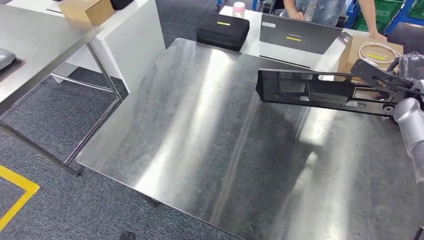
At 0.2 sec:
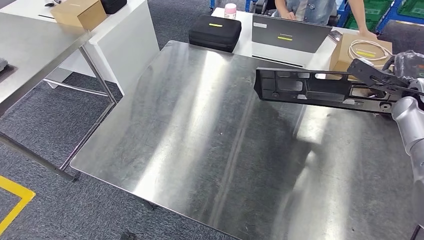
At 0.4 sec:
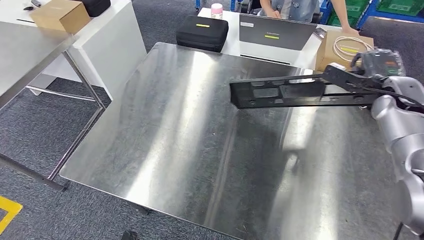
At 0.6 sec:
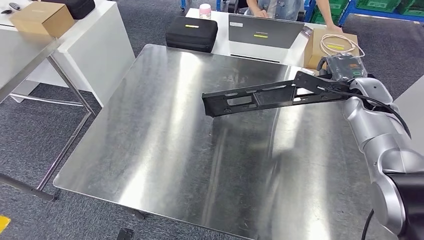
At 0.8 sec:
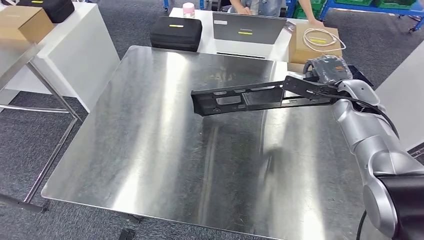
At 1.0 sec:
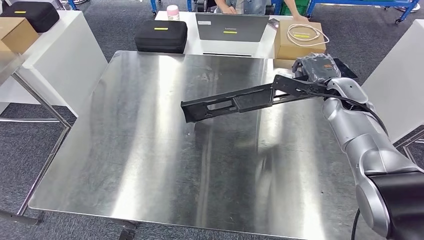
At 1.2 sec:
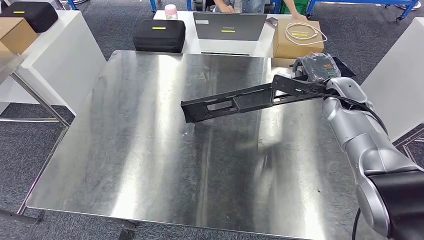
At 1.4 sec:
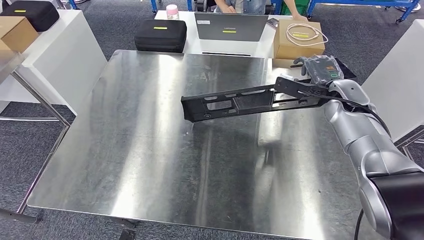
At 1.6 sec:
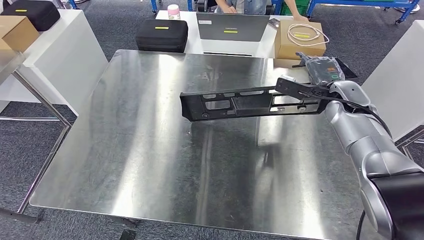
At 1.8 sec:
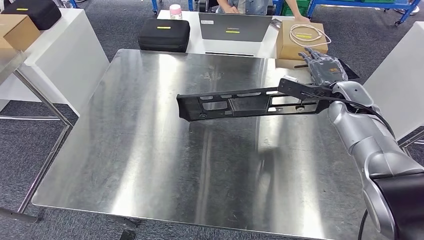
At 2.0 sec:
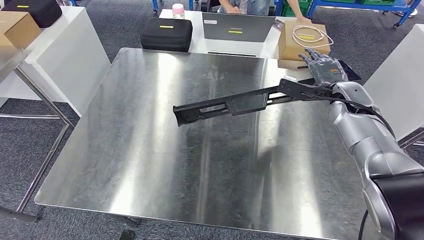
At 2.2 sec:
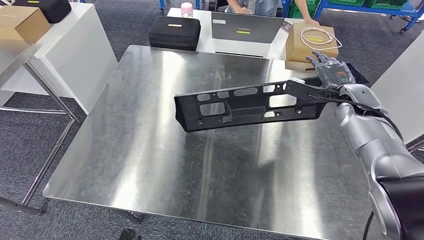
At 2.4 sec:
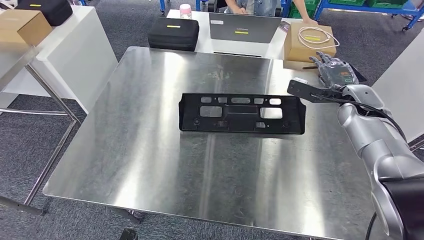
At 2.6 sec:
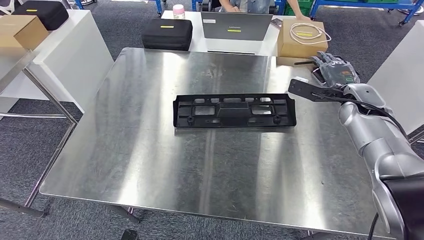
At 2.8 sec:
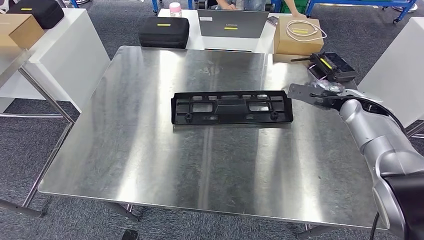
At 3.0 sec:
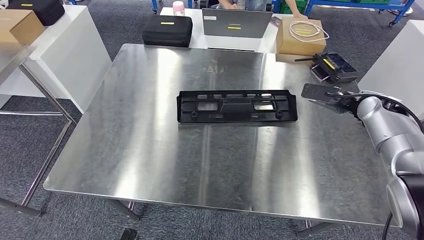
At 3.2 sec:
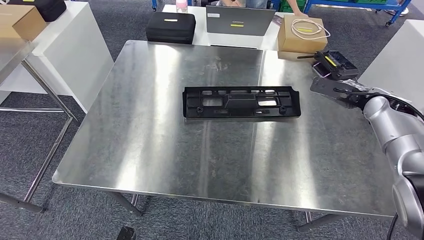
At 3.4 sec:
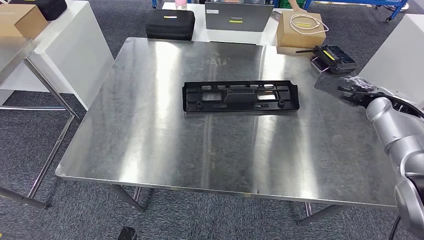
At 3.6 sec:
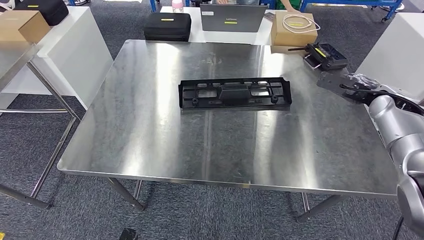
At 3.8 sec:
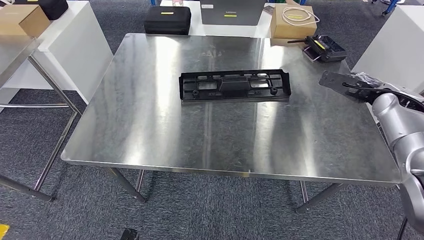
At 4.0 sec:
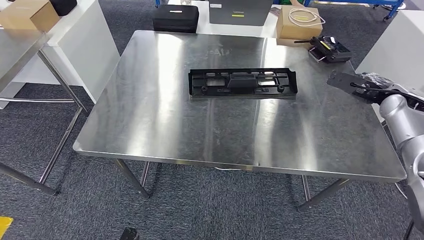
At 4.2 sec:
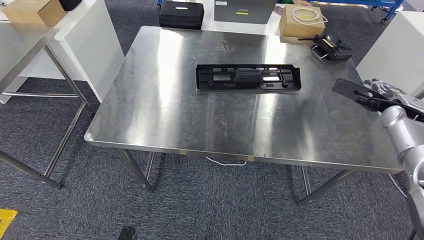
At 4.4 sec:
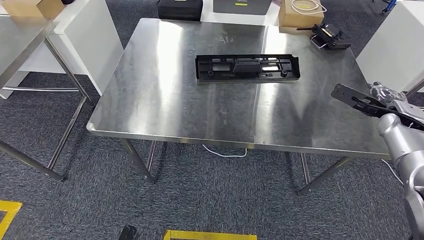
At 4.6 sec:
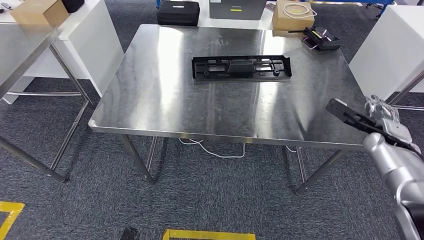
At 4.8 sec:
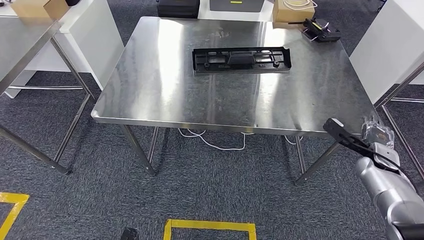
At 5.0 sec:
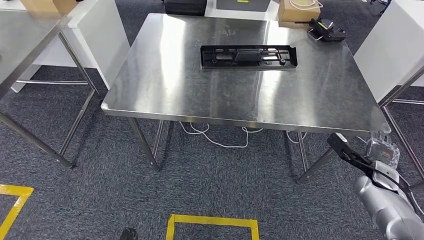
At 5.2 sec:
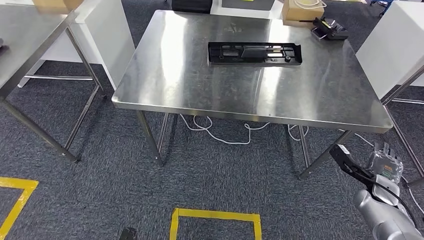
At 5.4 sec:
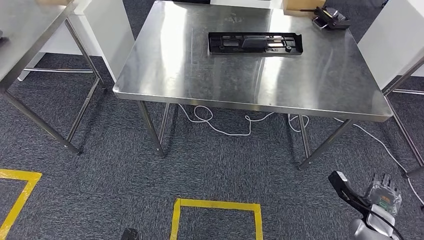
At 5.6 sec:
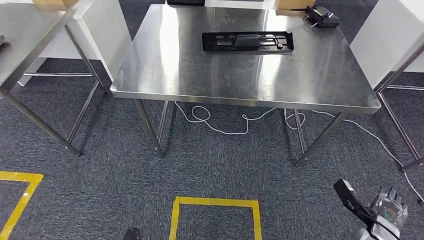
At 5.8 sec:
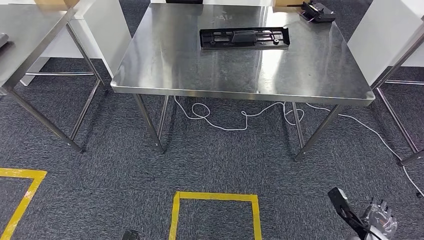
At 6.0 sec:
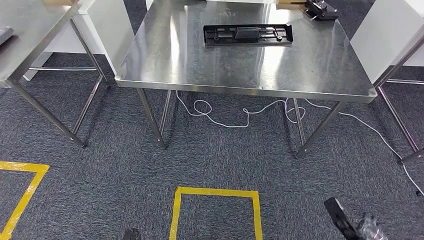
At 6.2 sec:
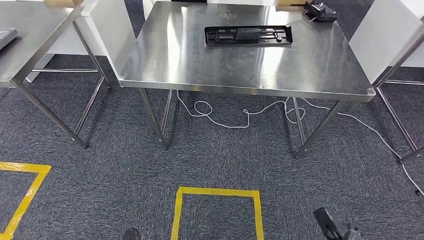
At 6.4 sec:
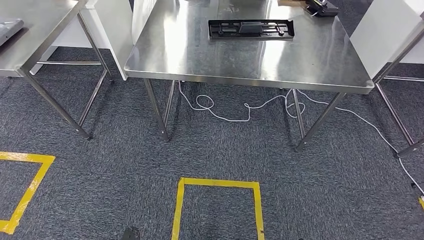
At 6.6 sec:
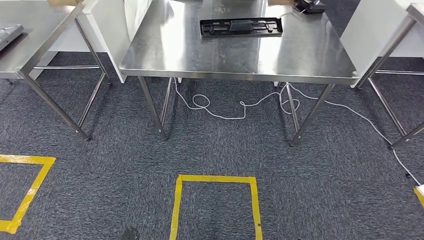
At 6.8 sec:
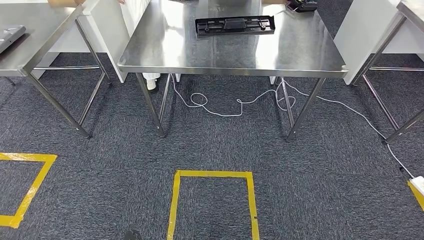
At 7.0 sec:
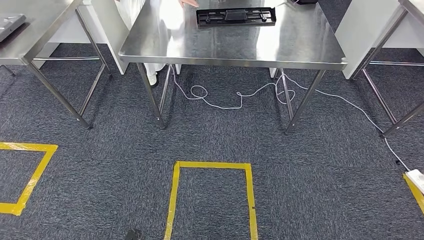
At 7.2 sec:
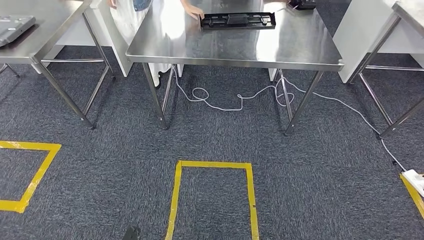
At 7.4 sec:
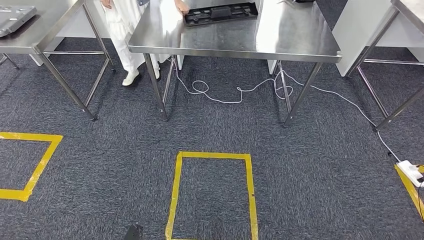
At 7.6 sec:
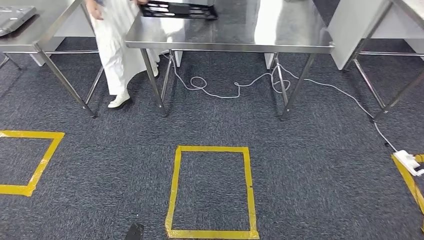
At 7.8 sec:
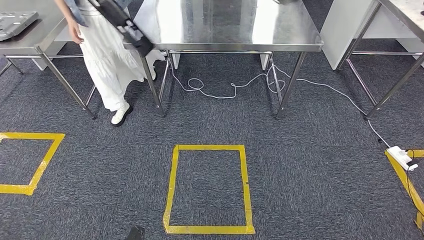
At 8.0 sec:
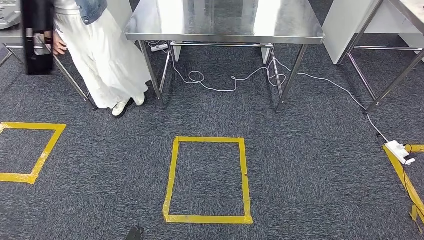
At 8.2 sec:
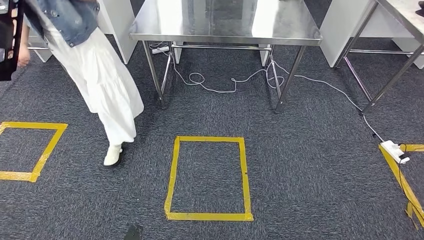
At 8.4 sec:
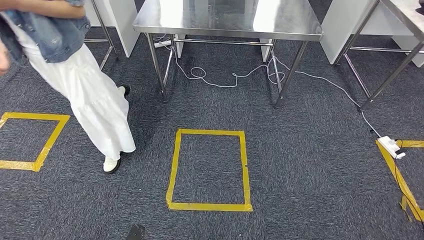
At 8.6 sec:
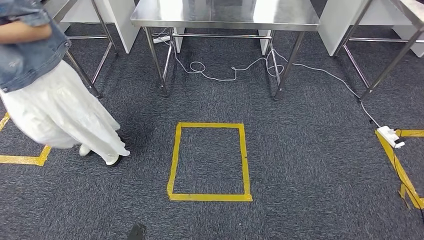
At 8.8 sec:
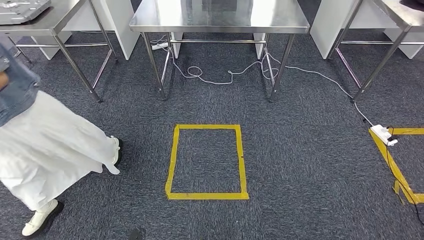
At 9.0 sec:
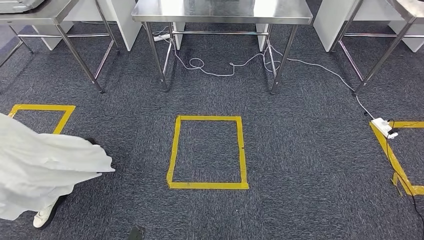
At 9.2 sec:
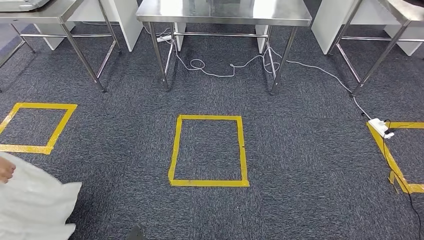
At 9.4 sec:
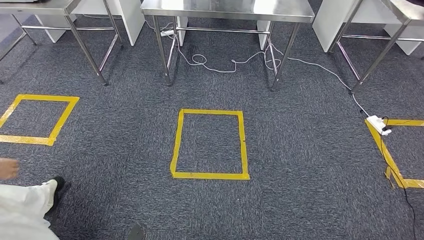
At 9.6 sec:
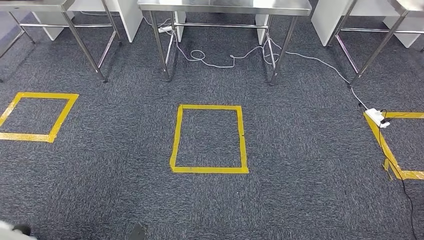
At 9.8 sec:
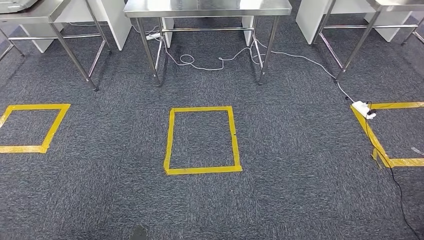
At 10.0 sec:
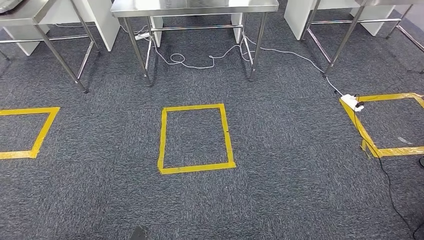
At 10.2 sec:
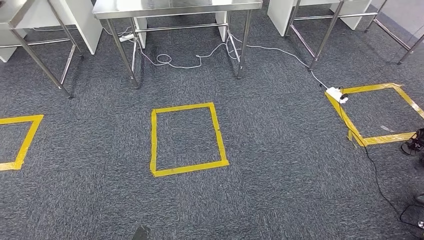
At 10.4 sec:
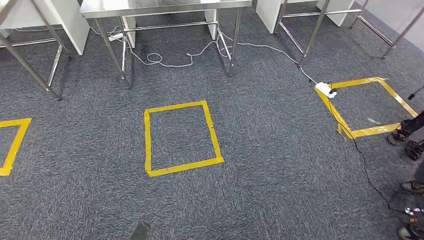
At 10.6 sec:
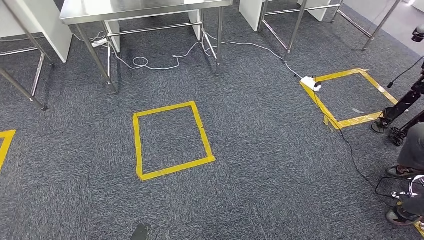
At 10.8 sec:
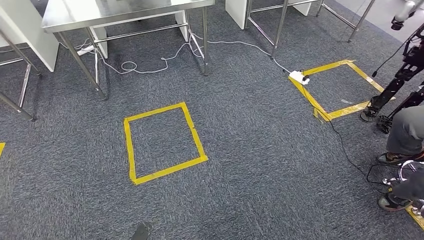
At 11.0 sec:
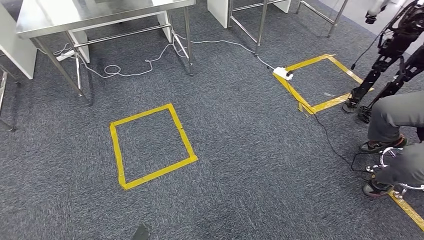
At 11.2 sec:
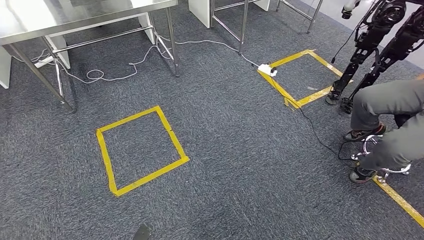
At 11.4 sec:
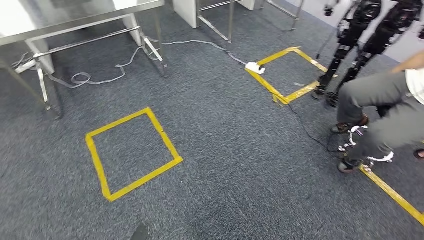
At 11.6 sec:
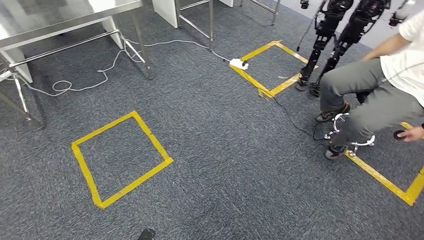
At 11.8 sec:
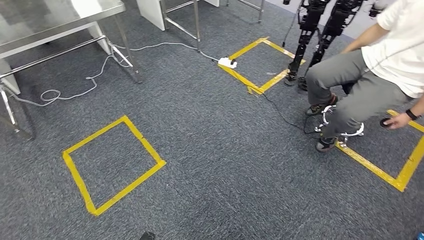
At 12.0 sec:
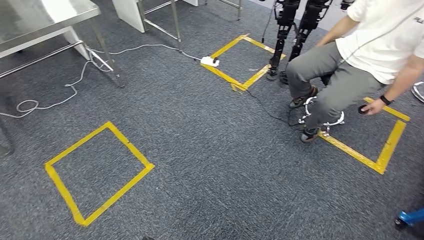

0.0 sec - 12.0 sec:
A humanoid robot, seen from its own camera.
Step, 0.0 sec - 3.2 sec: Insert the large material into the corresponding slot on the workbench.

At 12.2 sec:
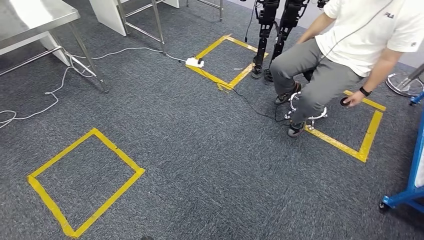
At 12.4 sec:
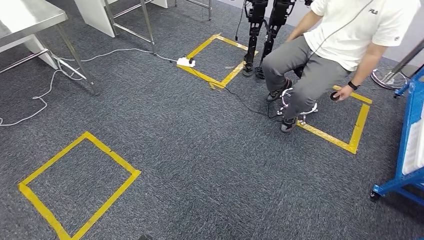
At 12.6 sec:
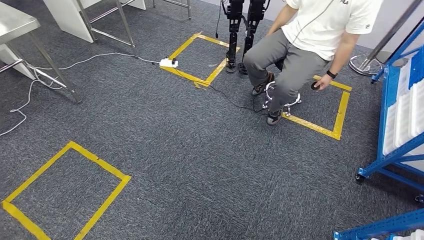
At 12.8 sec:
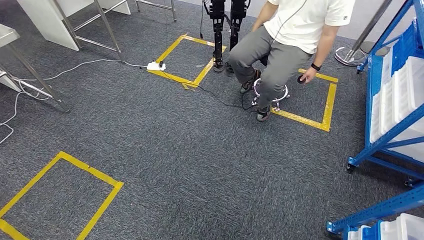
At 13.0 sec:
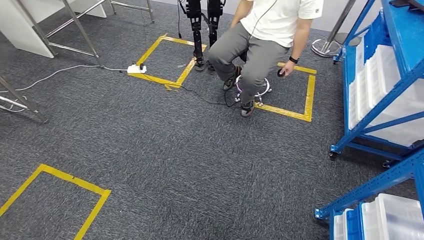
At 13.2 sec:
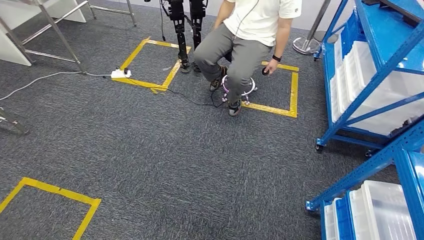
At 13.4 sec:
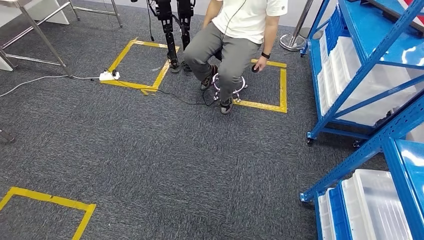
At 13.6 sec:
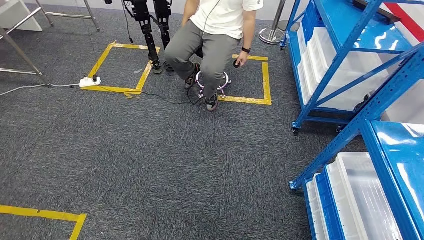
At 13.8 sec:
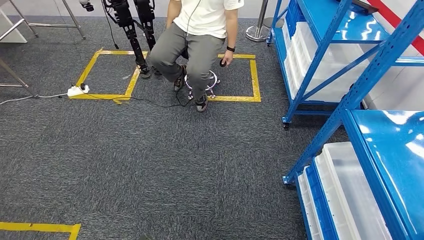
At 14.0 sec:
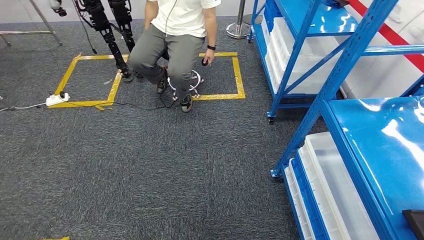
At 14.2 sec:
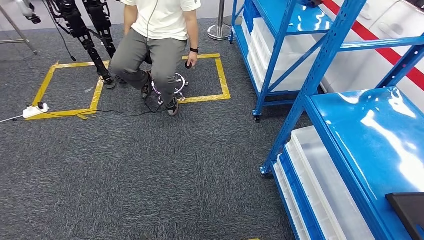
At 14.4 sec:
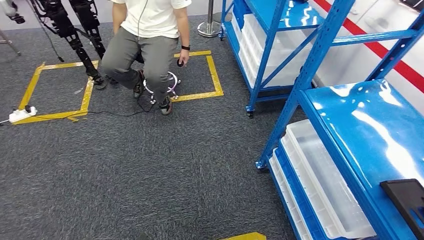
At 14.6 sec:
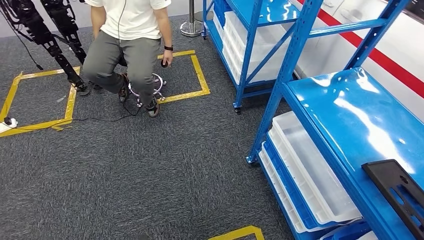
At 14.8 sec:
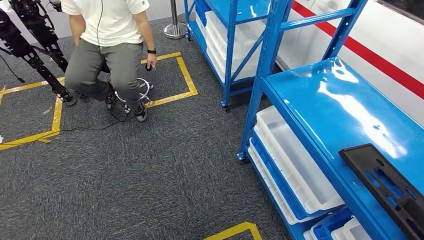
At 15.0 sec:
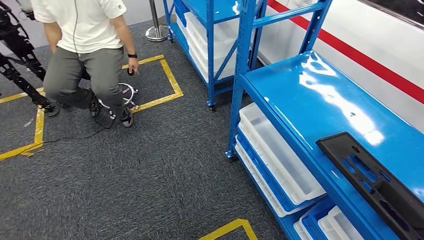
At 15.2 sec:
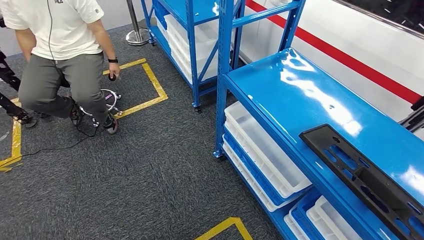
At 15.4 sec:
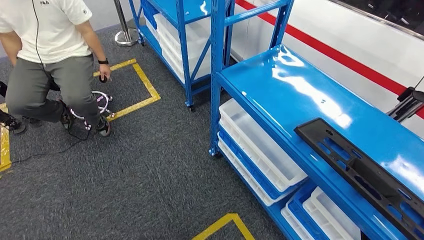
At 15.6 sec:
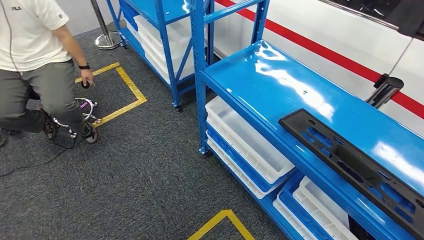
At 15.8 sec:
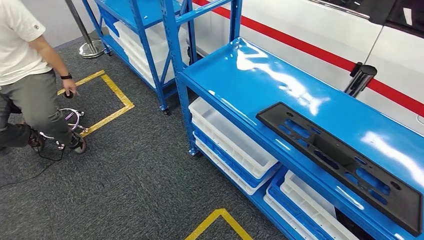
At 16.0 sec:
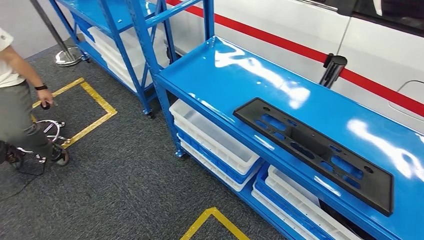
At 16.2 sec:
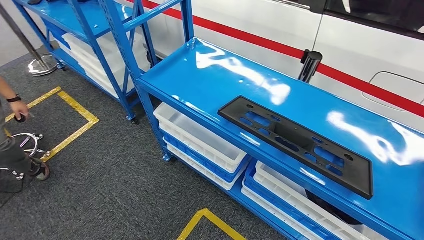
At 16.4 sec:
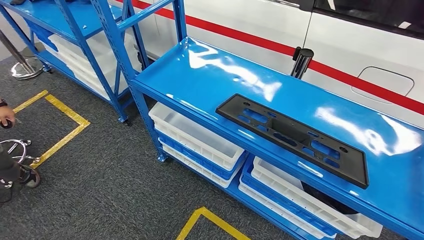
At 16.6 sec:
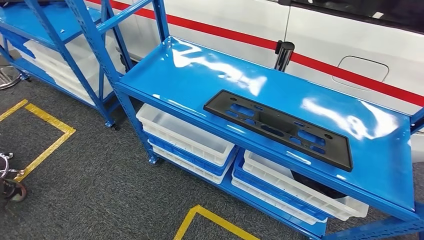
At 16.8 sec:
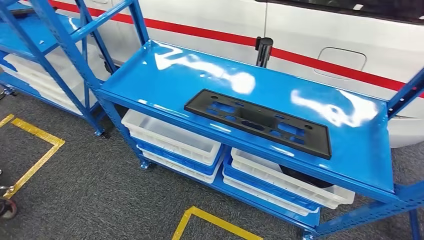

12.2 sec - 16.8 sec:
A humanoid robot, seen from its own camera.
Step, 12.2 sec - 16.6 sec: Move to the initial position of the shelf.
